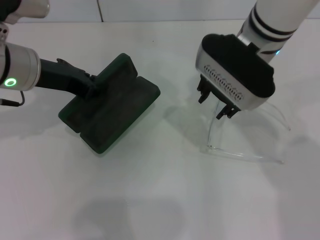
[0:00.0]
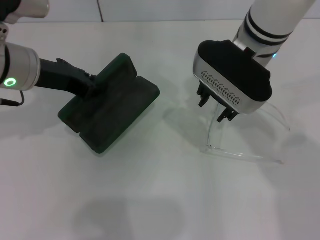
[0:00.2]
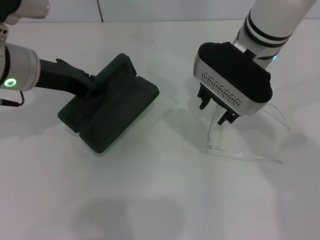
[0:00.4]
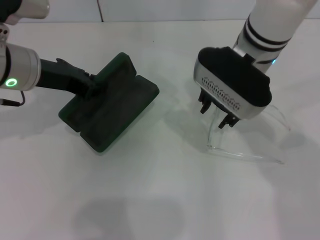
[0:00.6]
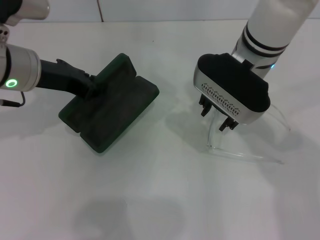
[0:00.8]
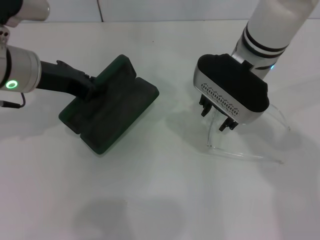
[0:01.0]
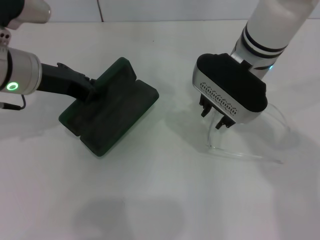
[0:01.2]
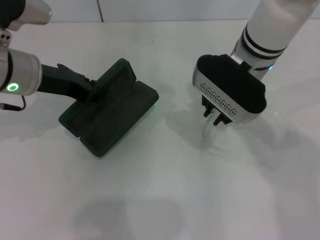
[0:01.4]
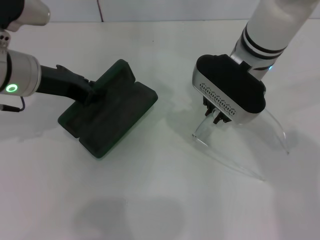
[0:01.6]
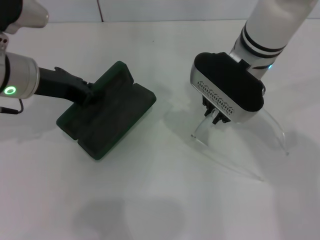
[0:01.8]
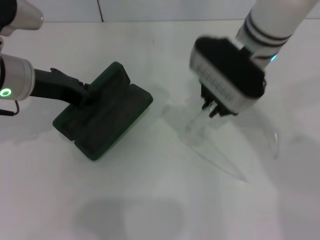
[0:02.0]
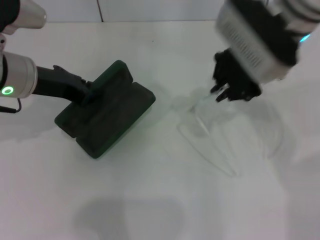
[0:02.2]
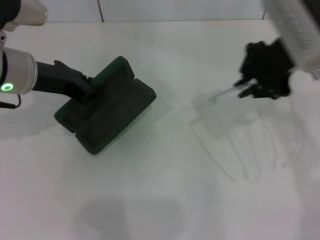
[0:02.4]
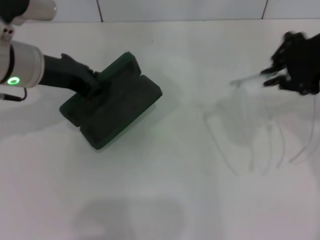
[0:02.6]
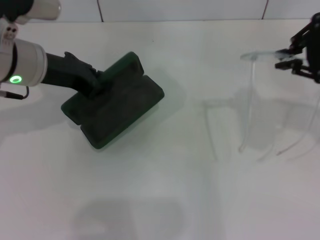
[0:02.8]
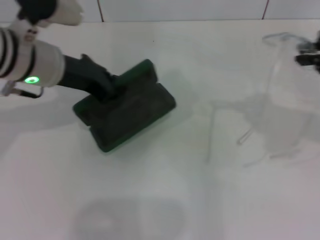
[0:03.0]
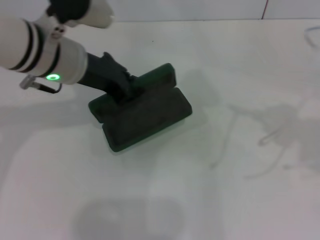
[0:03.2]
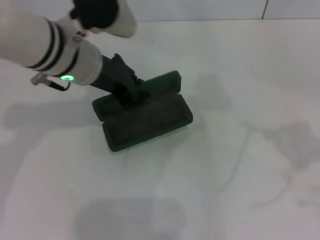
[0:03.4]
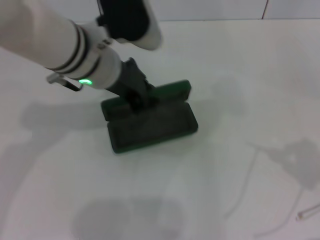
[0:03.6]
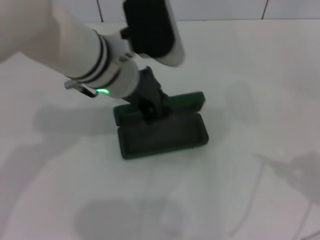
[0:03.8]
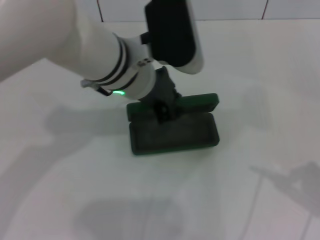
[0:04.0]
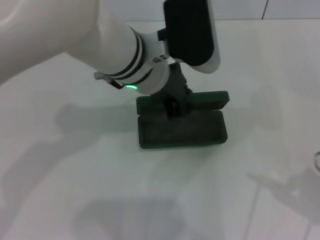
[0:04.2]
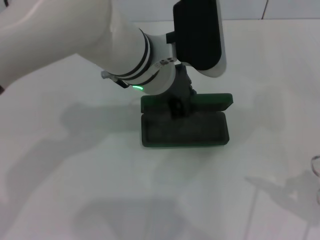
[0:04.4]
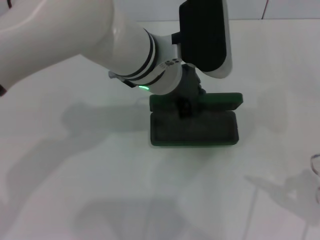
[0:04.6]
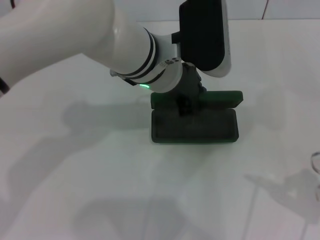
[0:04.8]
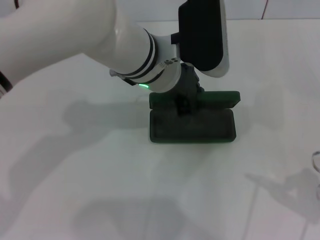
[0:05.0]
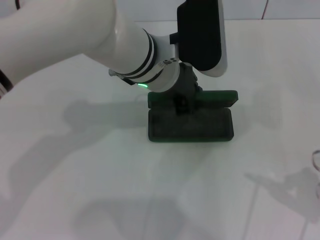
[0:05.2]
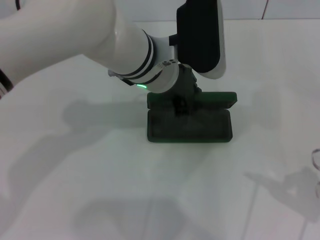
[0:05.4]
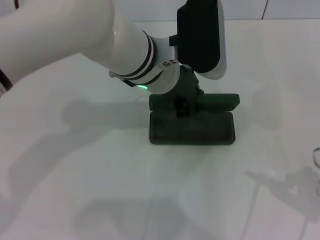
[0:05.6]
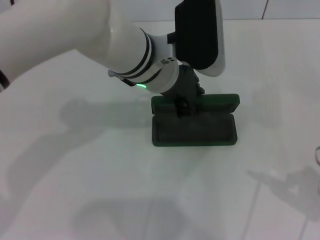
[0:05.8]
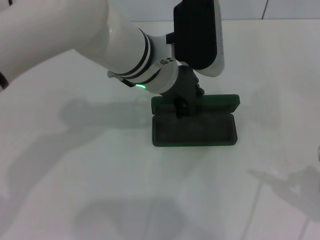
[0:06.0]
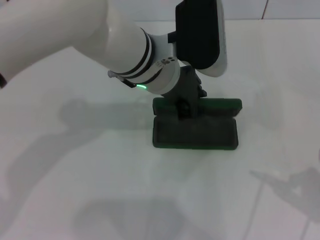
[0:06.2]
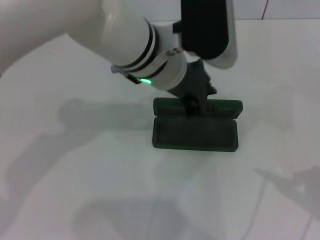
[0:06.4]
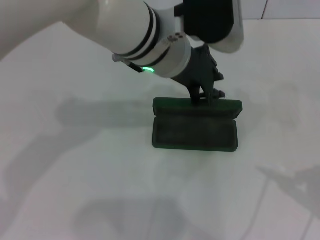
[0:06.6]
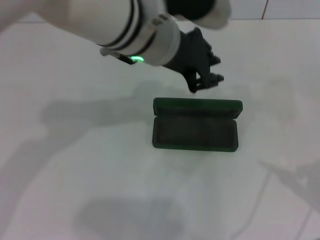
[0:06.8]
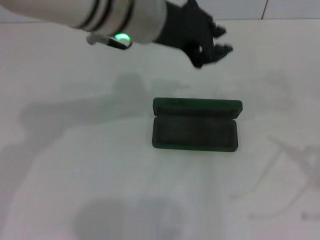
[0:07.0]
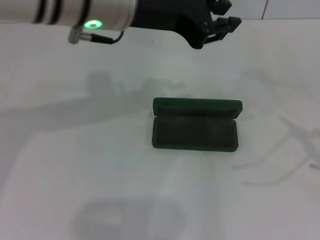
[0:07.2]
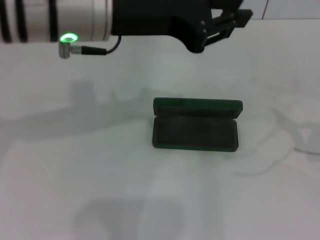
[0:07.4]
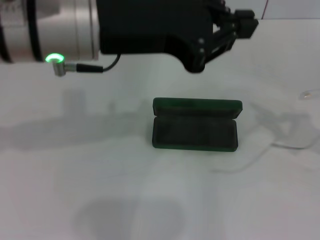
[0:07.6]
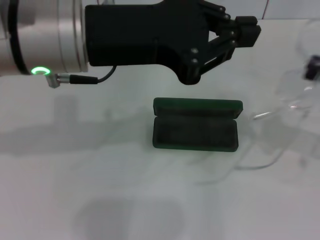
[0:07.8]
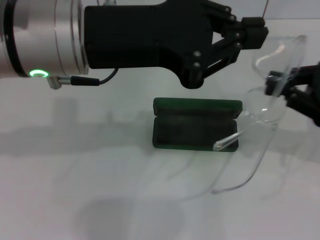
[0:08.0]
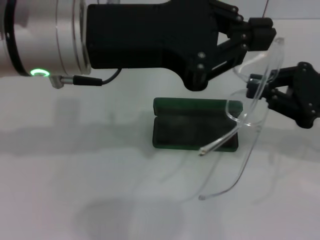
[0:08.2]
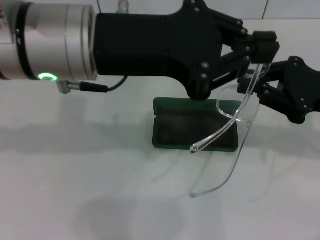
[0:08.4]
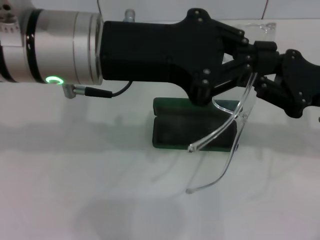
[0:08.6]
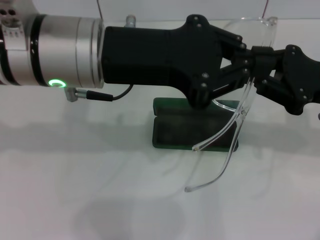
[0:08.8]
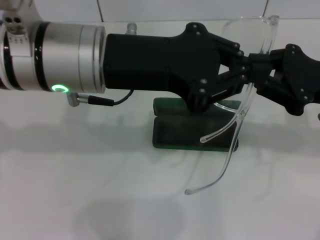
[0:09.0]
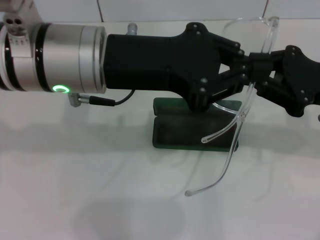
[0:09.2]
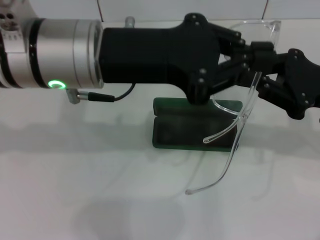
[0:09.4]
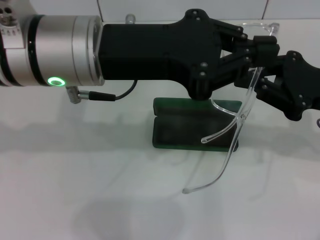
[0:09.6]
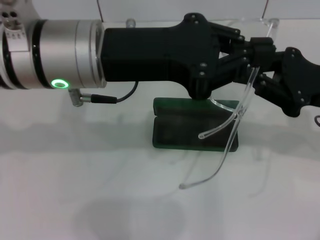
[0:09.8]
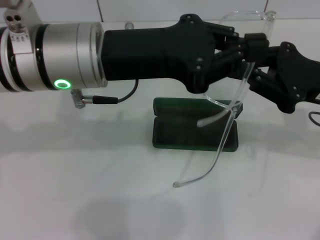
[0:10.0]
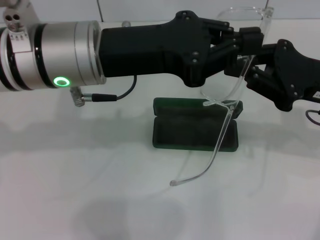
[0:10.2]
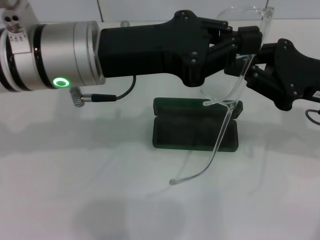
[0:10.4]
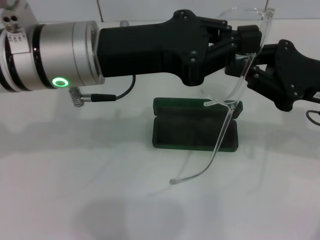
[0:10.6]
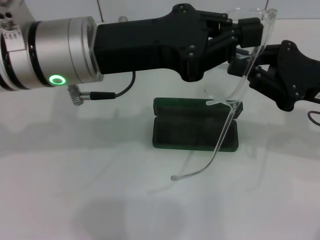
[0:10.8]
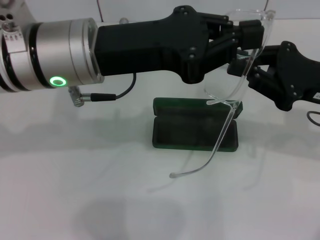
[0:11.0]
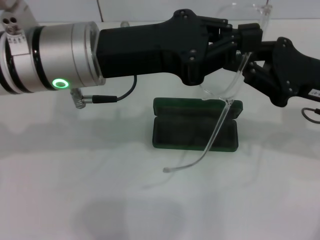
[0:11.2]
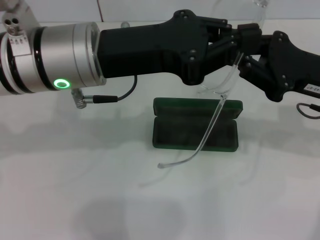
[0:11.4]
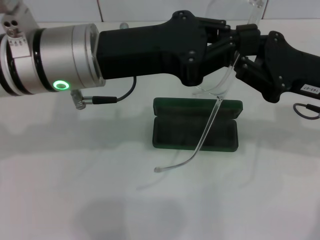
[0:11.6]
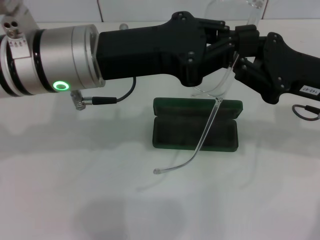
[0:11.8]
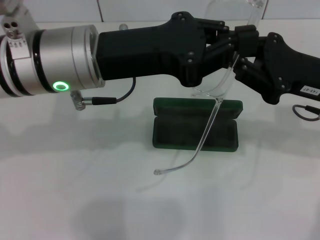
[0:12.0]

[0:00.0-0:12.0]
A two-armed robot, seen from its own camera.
Step, 0:01.8 to 0:06.4: Place the glasses case in the center of the table with your left hand.
0:00.0 to 0:01.6: The right gripper closes up.
0:01.6 to 0:03.0: The right gripper travels to the right, backward and upward by some 25 cm.
0:03.0 to 0:04.4: The right gripper heads downward, backward and to the right, covering about 15 cm; the left gripper heads to the right, covering some 15 cm.
0:04.4 to 0:06.0: The grippers move only a little.
0:06.0 to 0:07.6: The left gripper is displaced upward, to the left and backward by some 15 cm.
0:07.6 to 0:09.0: The right gripper is displaced to the left and forward by some 15 cm.
0:09.0 to 0:12.0: The grippers make only small movements.

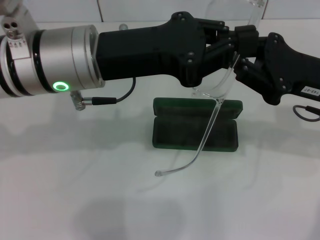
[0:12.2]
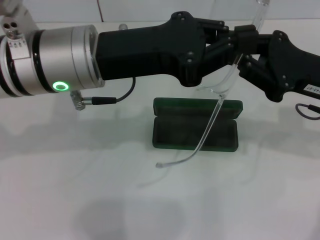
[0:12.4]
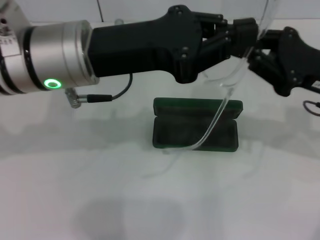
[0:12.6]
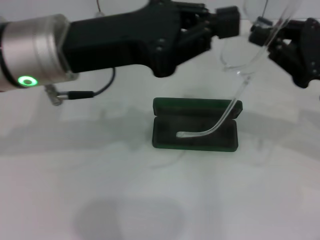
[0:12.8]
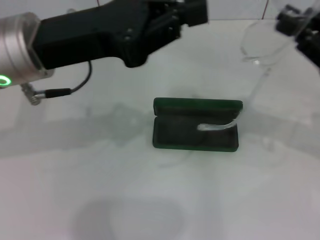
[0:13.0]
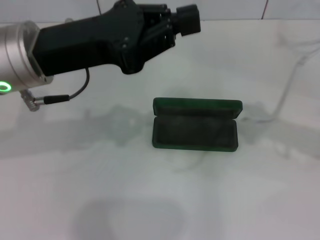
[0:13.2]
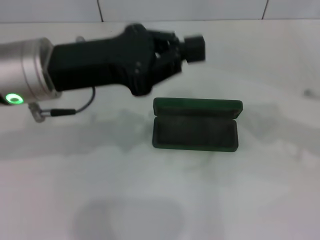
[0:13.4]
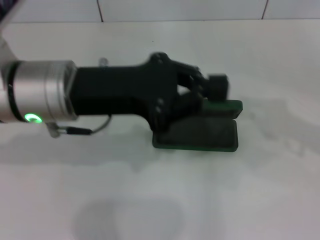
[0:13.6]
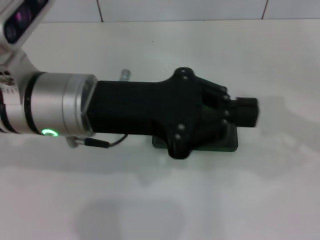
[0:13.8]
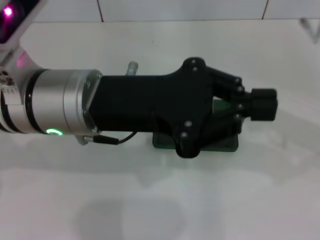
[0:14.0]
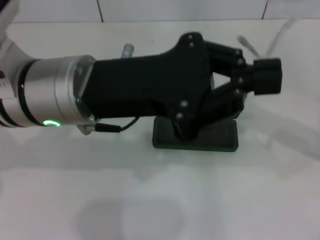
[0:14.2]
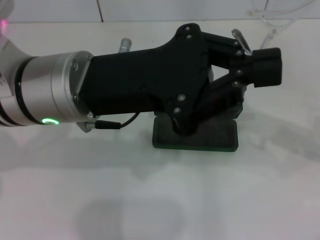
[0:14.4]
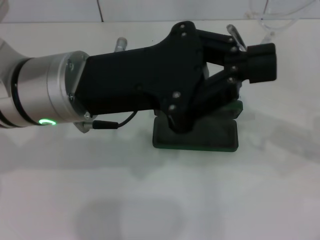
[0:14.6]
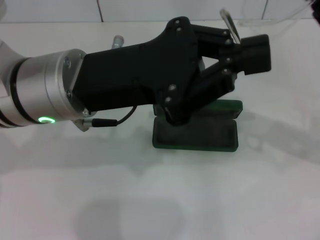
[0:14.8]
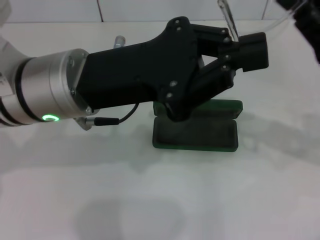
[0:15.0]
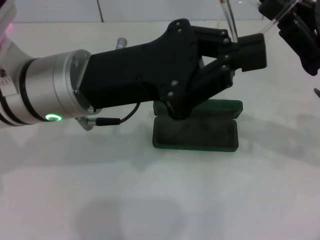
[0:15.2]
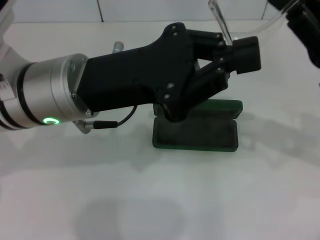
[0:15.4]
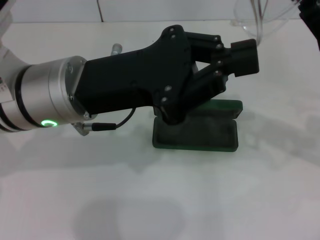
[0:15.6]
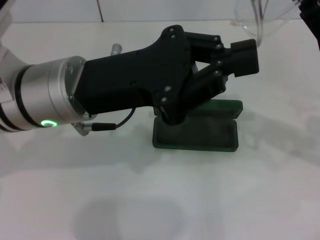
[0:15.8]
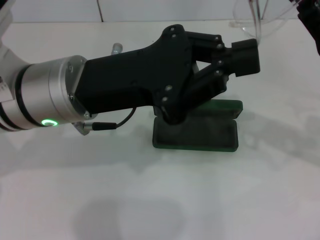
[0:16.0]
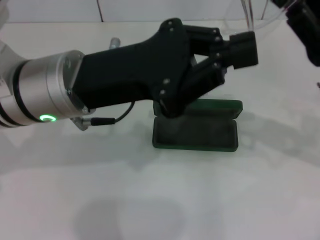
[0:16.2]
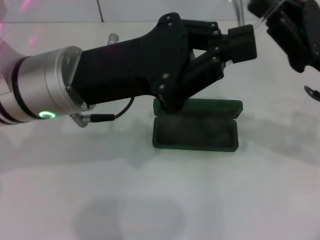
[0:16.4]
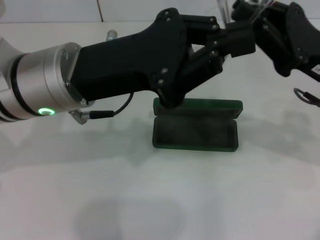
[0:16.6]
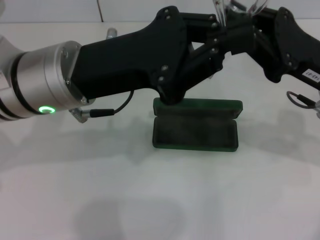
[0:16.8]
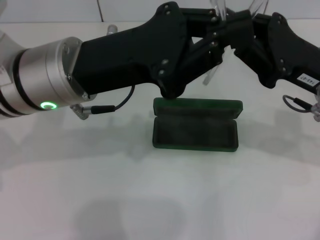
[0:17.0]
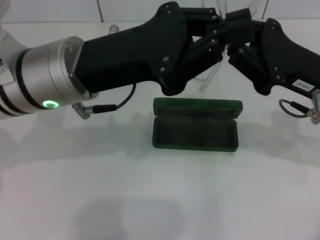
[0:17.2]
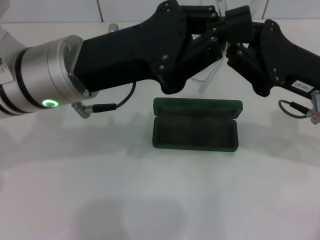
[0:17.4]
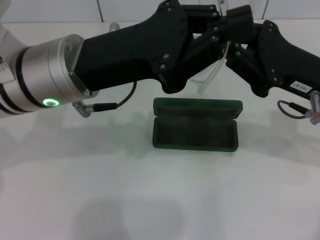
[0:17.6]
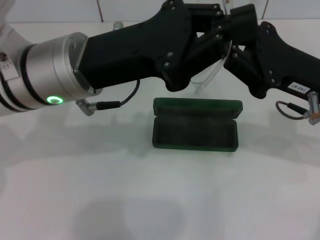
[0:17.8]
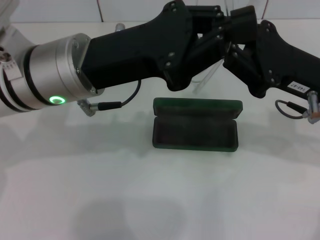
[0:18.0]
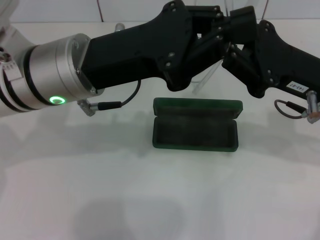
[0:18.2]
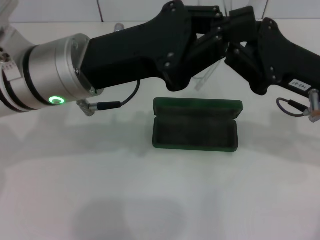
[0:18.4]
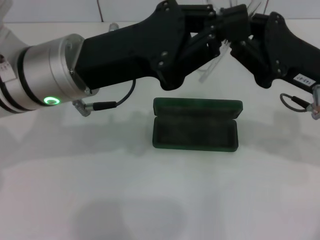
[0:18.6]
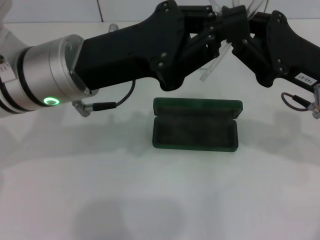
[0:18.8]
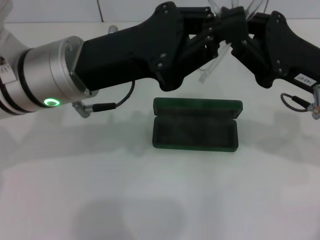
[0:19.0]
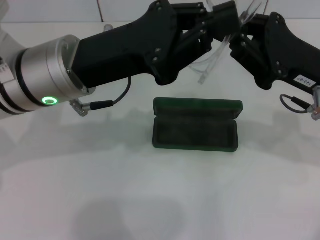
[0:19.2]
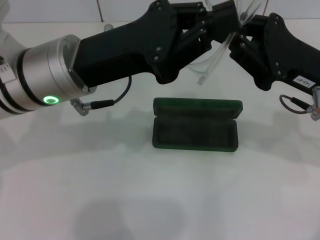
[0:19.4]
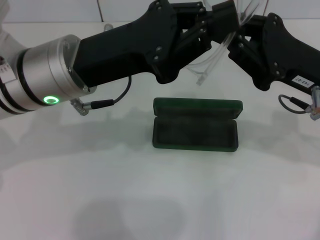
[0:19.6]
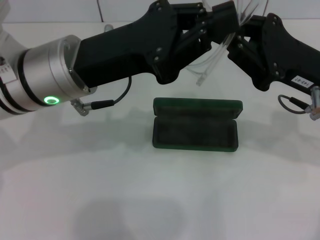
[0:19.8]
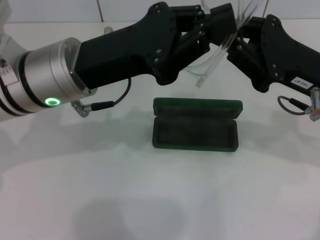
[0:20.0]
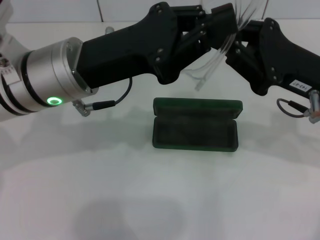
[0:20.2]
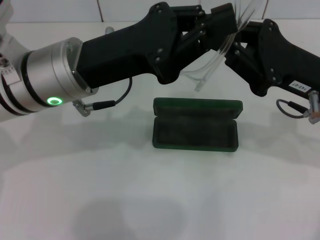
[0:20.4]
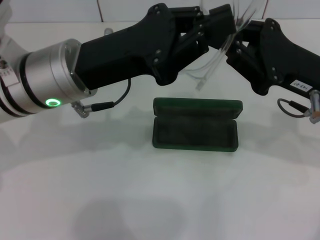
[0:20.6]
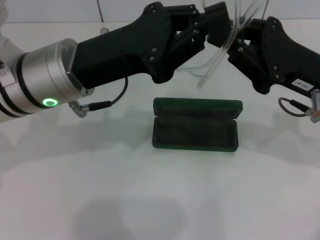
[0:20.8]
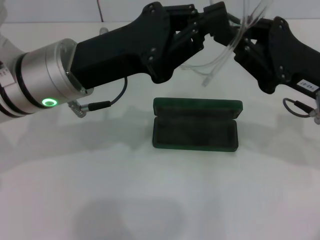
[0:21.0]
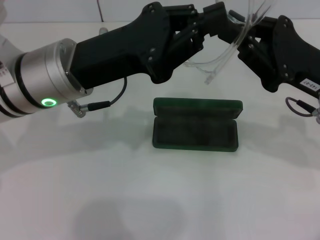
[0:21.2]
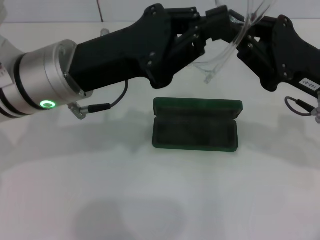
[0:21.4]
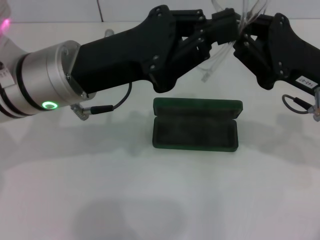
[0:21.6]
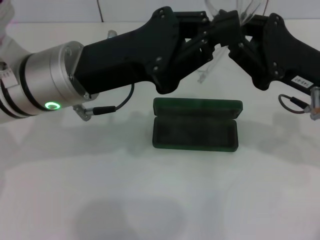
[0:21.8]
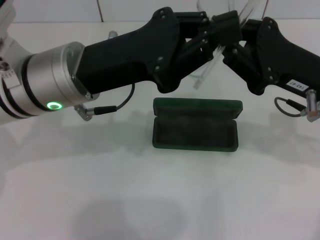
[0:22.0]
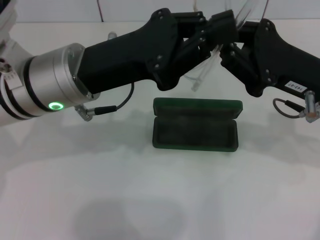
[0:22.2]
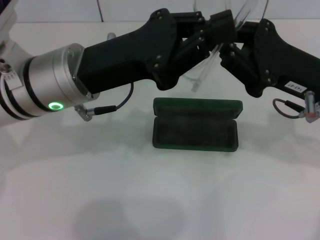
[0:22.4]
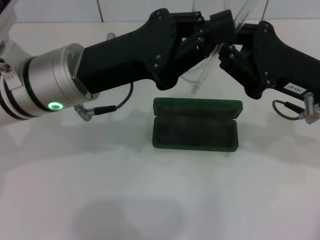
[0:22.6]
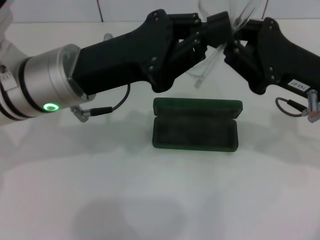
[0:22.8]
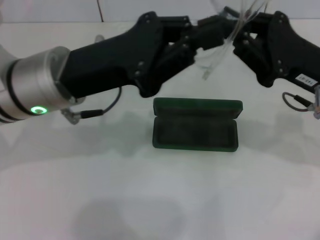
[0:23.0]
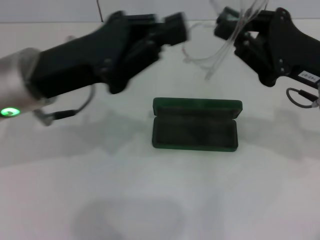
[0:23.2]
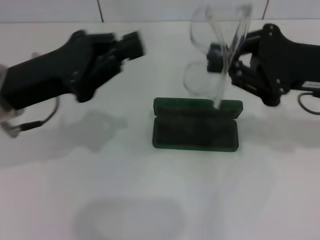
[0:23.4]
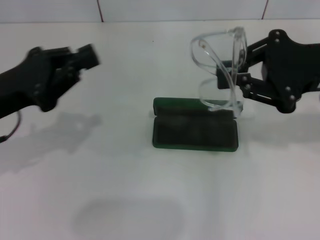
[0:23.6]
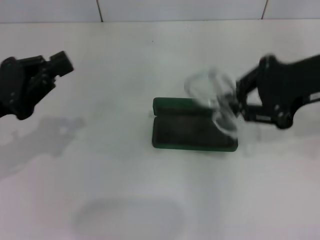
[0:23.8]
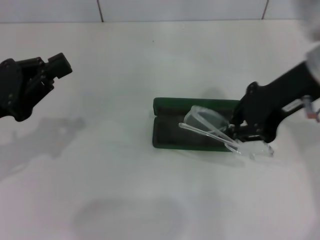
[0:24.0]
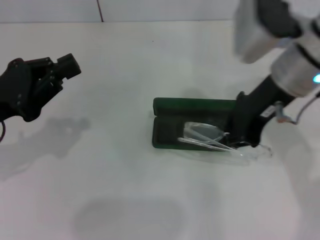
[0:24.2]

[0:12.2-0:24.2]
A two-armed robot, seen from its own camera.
Step, 0:12.2 to 0:19.0: Lift the glasses with your right hand.
0:12.2 to 0:13.8: The right gripper heads to the right, covering about 10 cm.
0:13.8 to 0:15.2: The right gripper heads to the left, covering approximately 10 cm.
0:15.2 to 0:16.6: The grippers make only small movements.
0:18.2 to 0:19.8: The two grippers keep their place.
0:19.8 to 0:21.2: Neither gripper changes place.
0:21.2 to 0:22.6: There are only small adjustments of the grippers.
0:22.6 to 0:24.2: The left gripper heads to the left, covering approximately 15 cm, while the right gripper goes roughly 10 cm upward and to the left.
